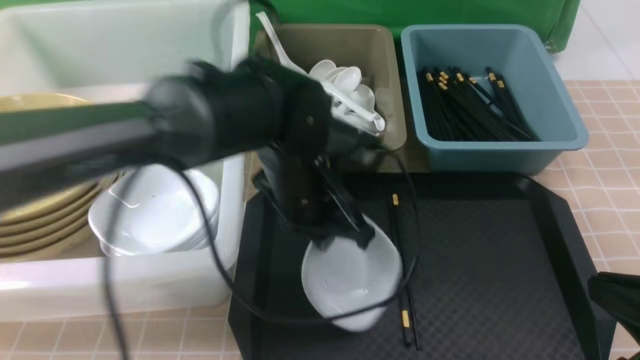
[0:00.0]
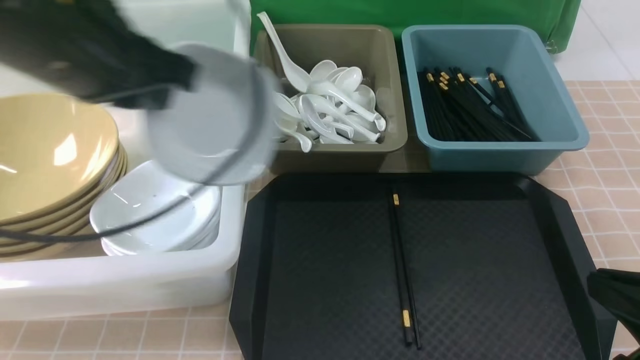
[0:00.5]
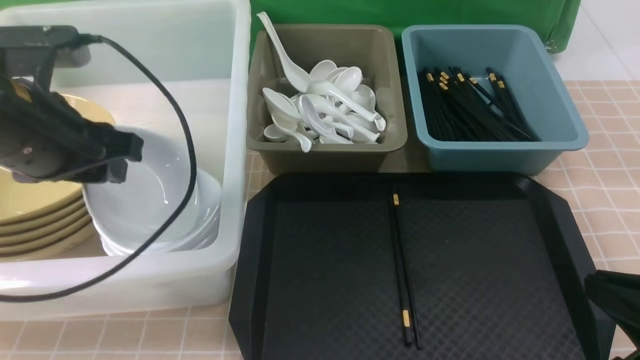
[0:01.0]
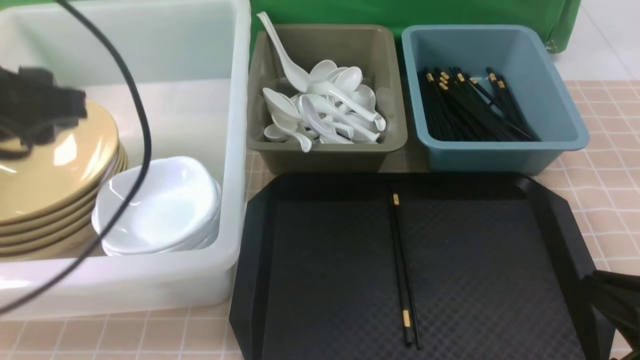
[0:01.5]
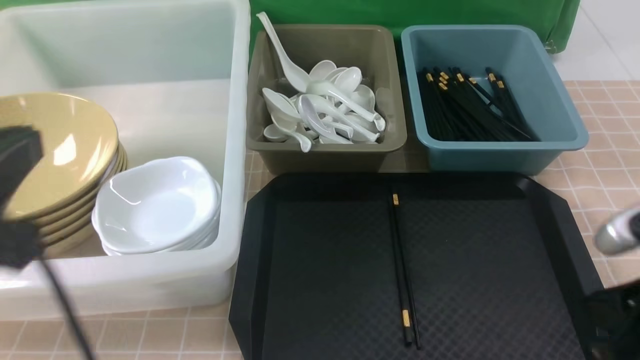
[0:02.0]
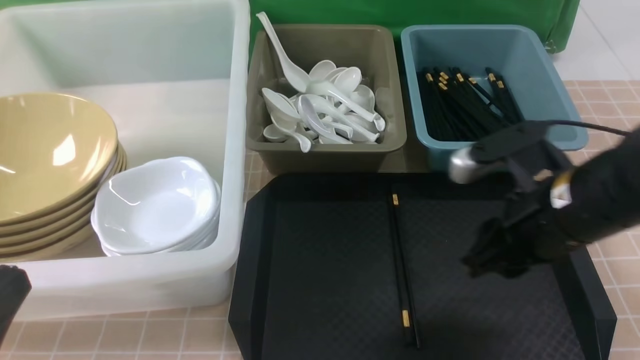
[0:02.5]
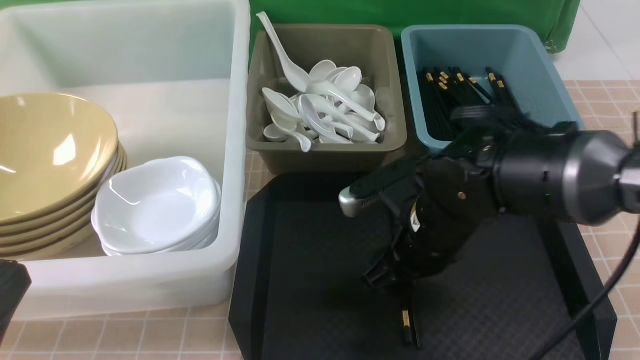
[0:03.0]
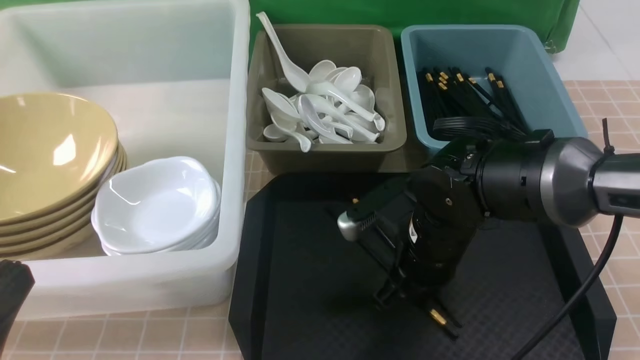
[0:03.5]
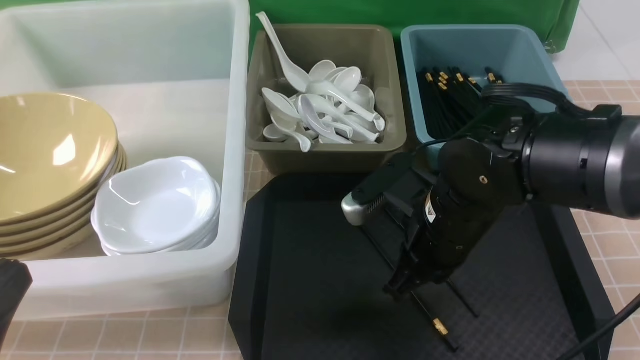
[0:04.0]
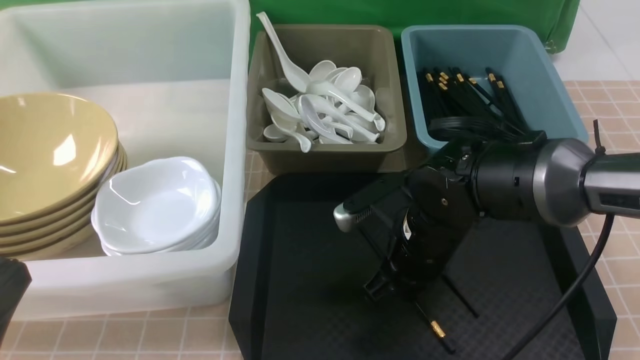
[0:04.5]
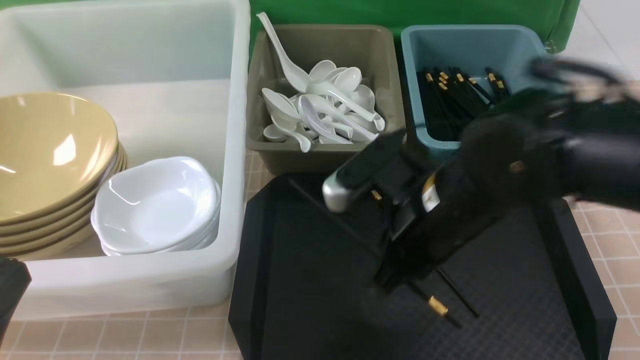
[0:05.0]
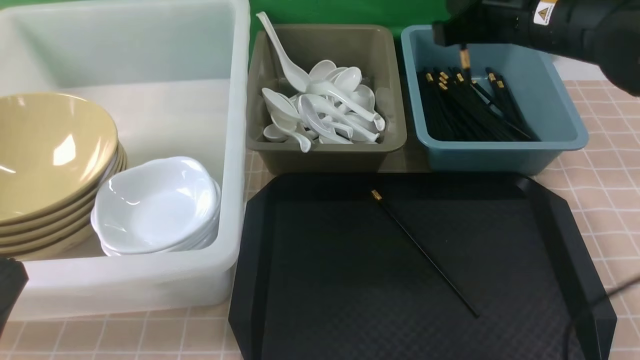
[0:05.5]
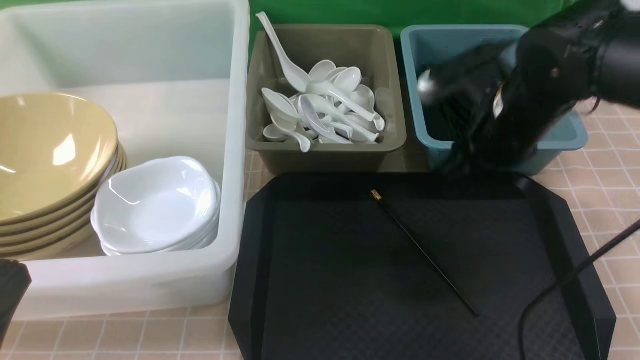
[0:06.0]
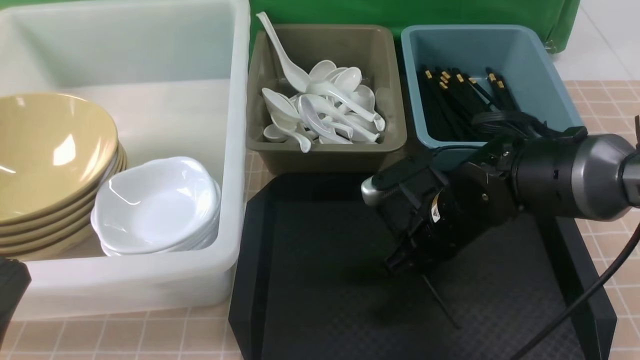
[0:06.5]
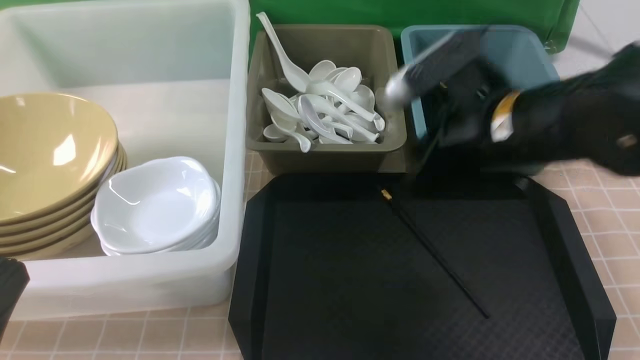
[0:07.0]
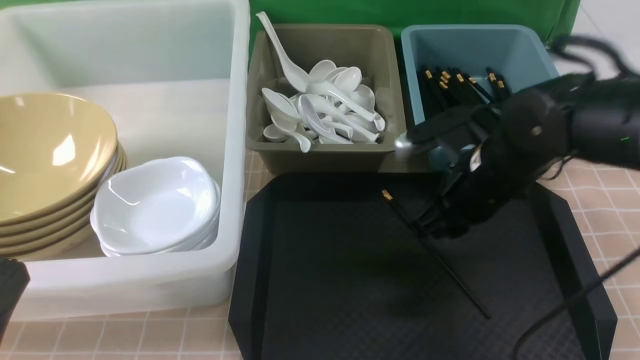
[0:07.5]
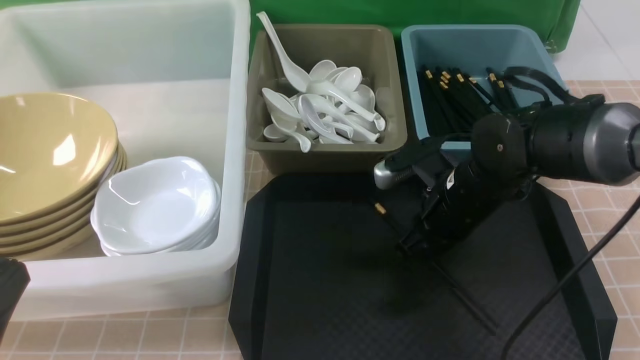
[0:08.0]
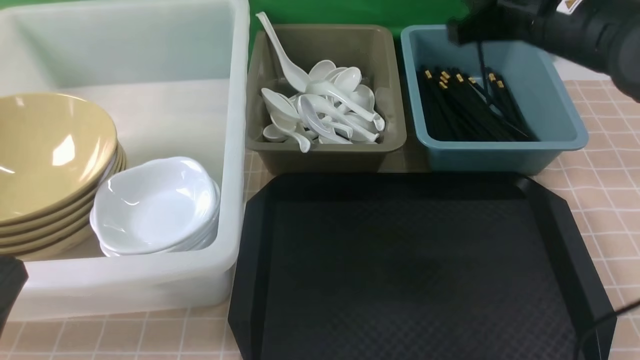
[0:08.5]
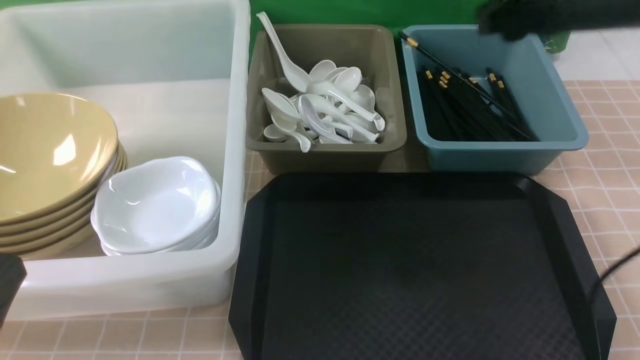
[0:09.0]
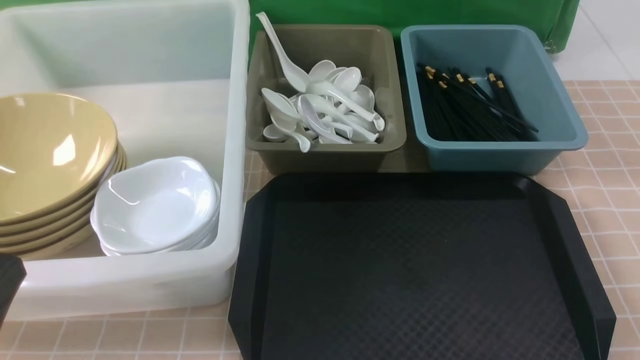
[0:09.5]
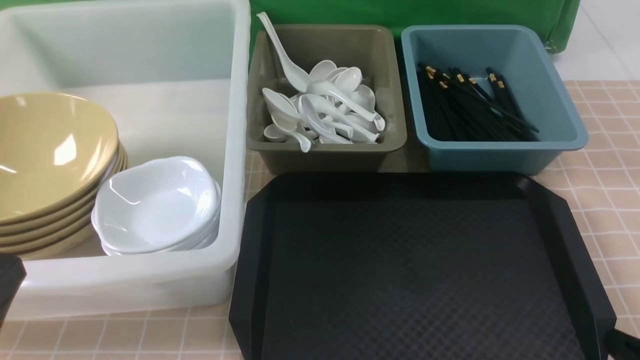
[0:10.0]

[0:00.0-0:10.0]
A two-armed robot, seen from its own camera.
Task of the whole recording: on brown table put chopsticks spoon bowls plates into blue grey white boxes.
Step, 0:00.5 to 0:01.0: use the left arm to put the plate into the large storage box on the left.
Step, 0:01.5 to 0:04.5: use the right arm to grab a chopstick.
Step, 0:06.0 to 0:08.0: use the right arm to grab a chopstick.
Step, 0:08.5 to 0:09.0: use the right arm to put a chopstick into the small storage box on the right.
0:00.0 to 0:02.0: The left gripper is displaced to the left, backward and upward by some 30 cm, and opens, then closes again.
0:02.0 to 0:04.0: The right gripper shifts about 20 cm to the left and forward, and opens and closes again, while the left gripper shifts about 10 cm downward and backward.
0:04.0 to 0:06.0: The right gripper moves forward and to the right, approximately 10 cm, reaches roughly 10 cm upward, then returns, and opens.
0:06.0 to 0:08.0: The right gripper moves up and down over some 10 cm, changing direction 2 times, and closes its fingers.
0:08.0 to 0:10.0: The right gripper travels backward and to the right by roughly 30 cm, and opens, then closes again.

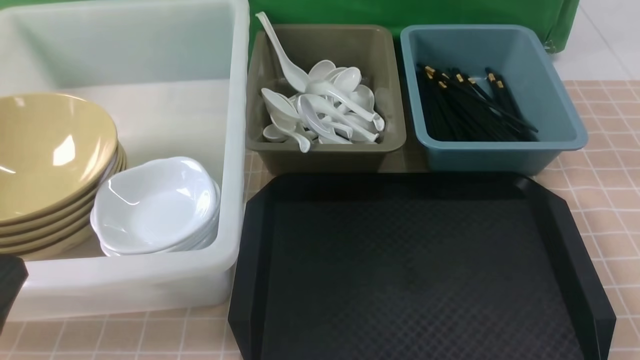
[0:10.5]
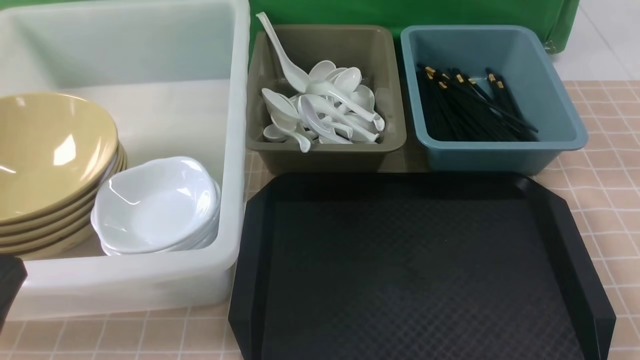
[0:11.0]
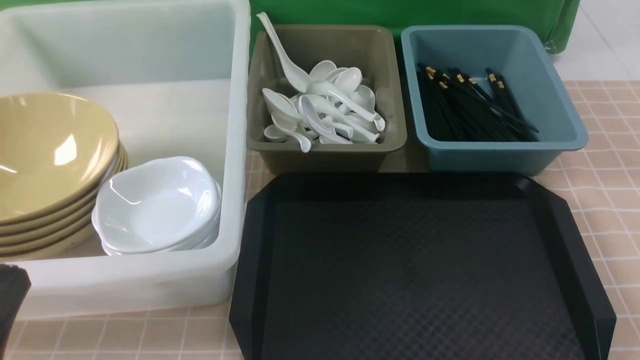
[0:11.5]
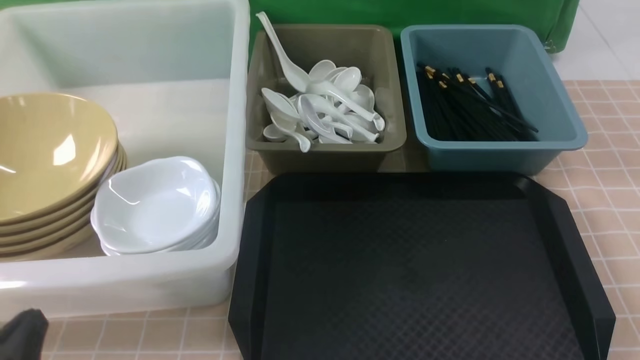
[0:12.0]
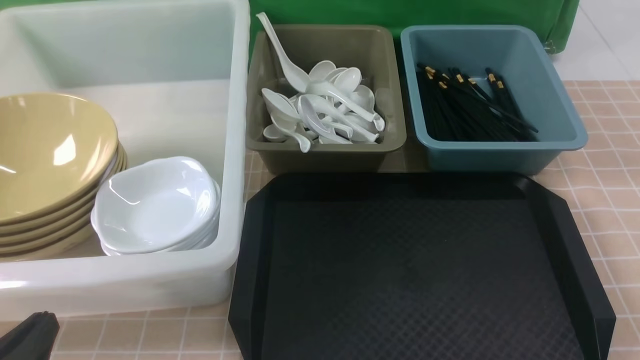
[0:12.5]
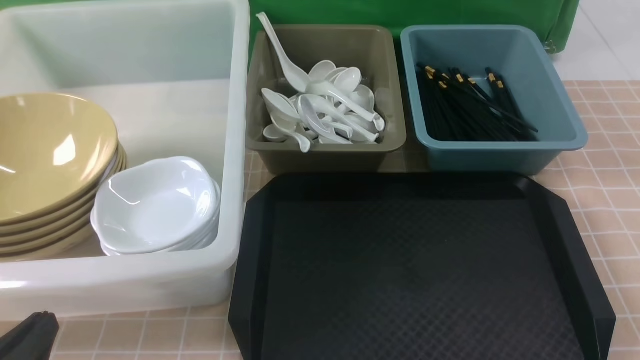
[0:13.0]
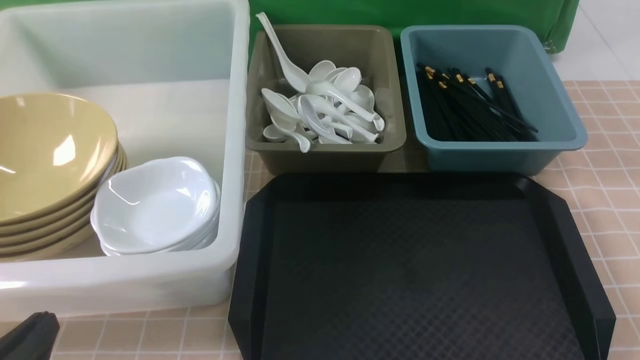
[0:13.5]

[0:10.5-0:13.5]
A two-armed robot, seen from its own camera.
Task of the whole recording: on brown table put chopsticks spoon bowls plates into blue grey white boxes.
0:10.5 to 0:12.0: The left gripper heads downward, covering roughly 10 cm.

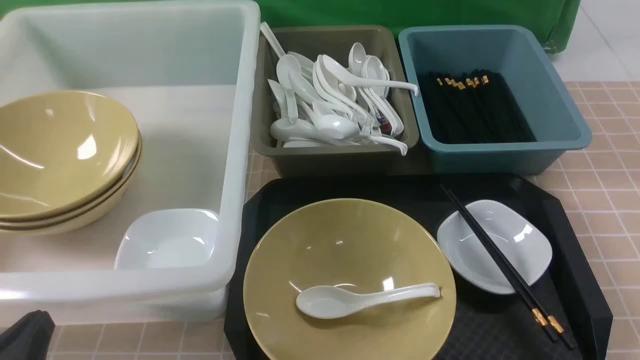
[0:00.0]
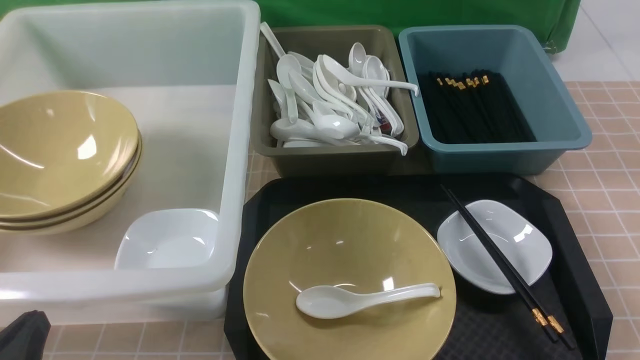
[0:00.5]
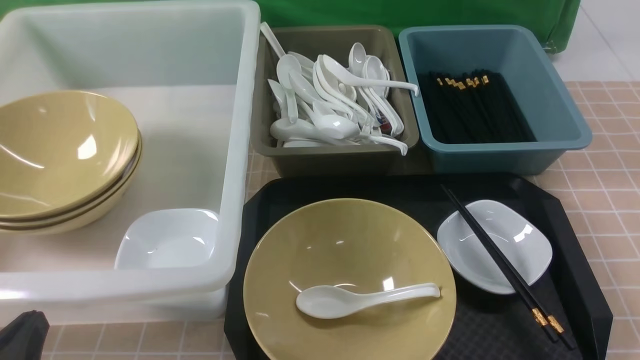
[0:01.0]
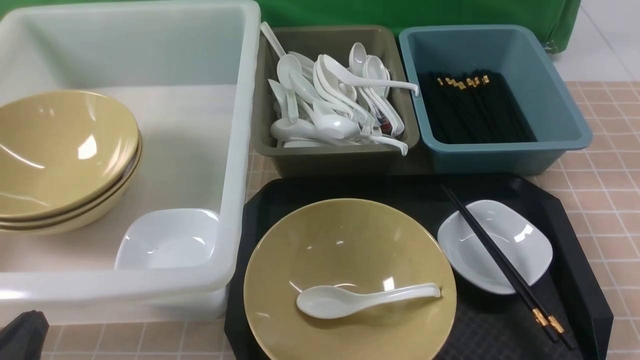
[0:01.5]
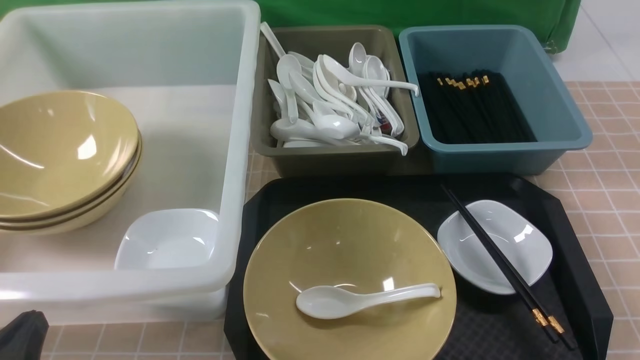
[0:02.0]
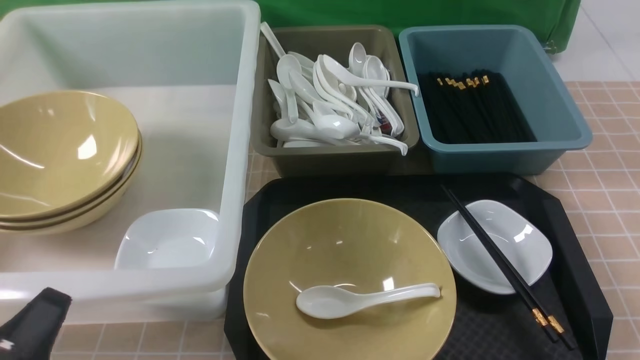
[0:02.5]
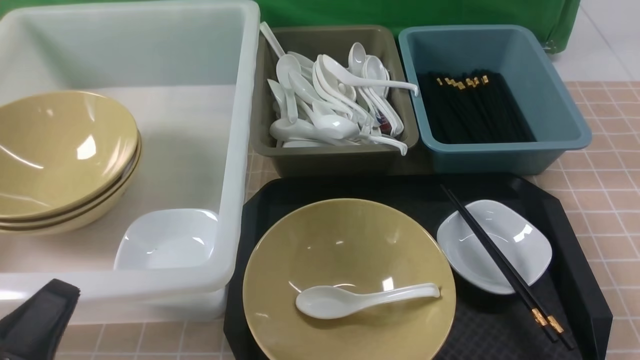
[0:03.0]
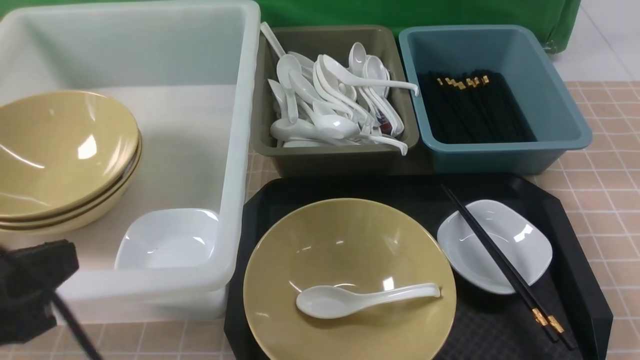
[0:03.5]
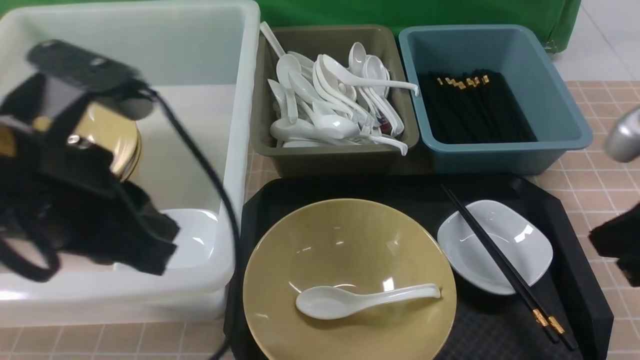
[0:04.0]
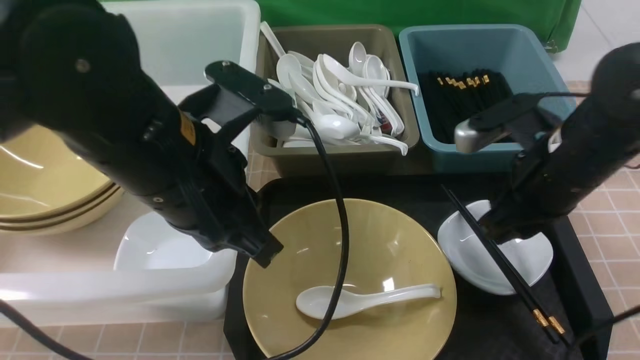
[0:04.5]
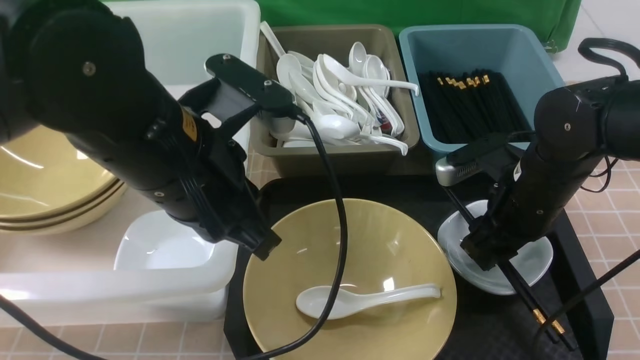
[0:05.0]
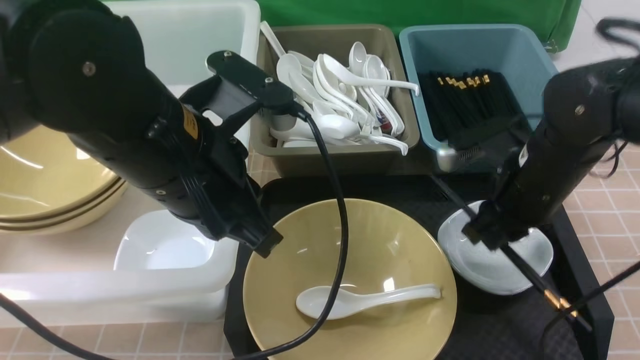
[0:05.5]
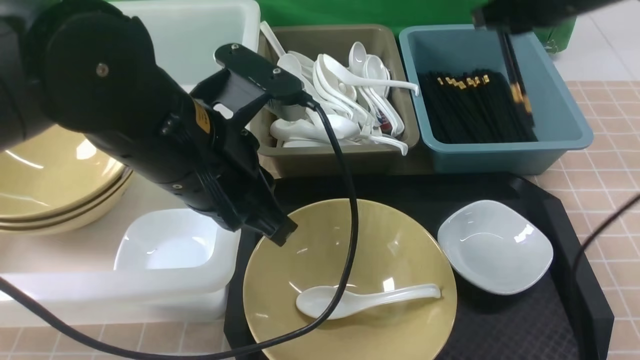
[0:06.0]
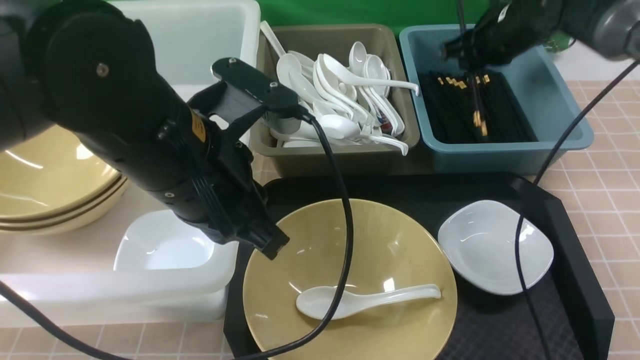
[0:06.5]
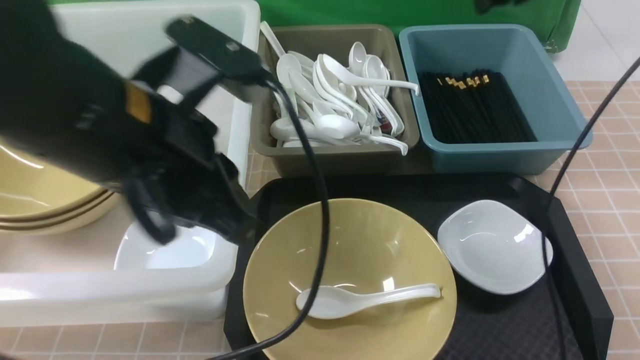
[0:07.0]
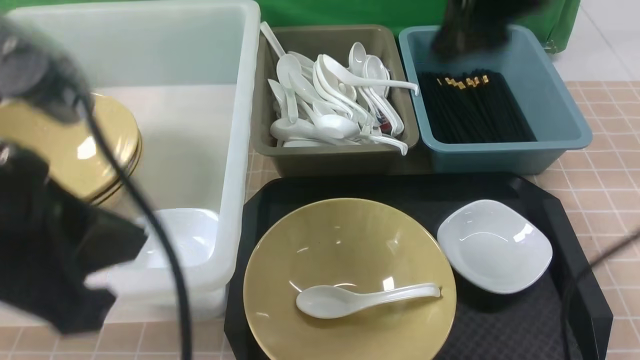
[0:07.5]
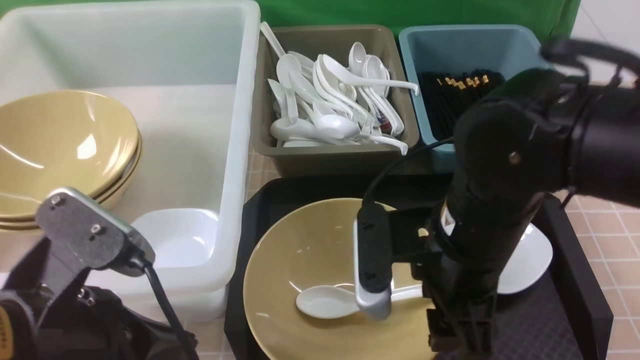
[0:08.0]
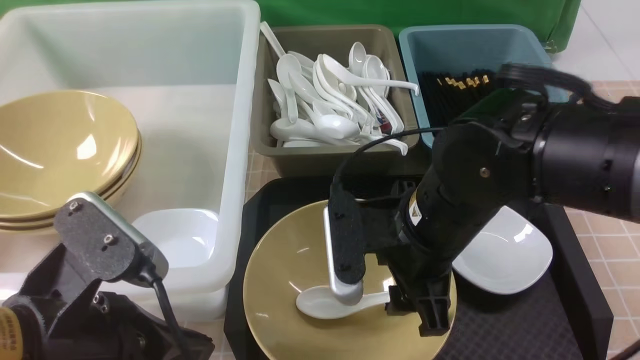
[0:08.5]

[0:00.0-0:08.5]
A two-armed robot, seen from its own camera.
Task of the whole recording: on brown table put chopsticks spoon bowls plates into blue grey white boxes.
Step, 0:00.0 to 0:05.5: use the right arm to grab the chopsticks.
Step, 0:06.0 to 0:06.5: use the right arm to put the chopsticks into the small storage box on the right.
0:00.0 to 0:02.0: Both grippers stay put.
0:02.0 to 0:04.0: The right gripper moves upward, forward and to the left, some 20 cm, and closes up, while the left gripper is displaced upward, forward and to the right by roughly 25 cm.
0:04.0 to 0:06.5: The left gripper heads to the right and forward, covering approximately 10 cm, while the right gripper travels forward by roughly 35 cm.
0:06.5 to 0:08.5: The left gripper goes approximately 15 cm backward and to the left. The right gripper shifts about 30 cm backward and to the left, and opens.
